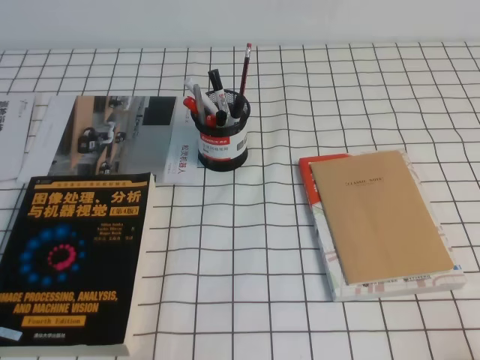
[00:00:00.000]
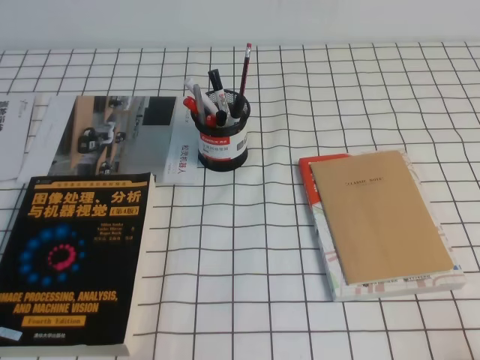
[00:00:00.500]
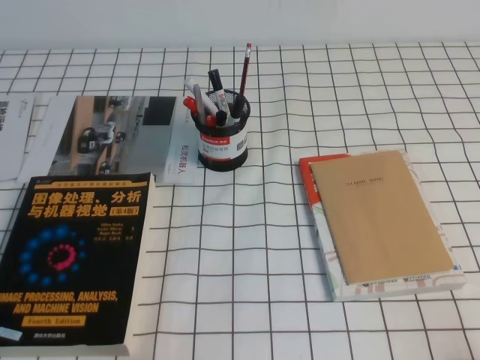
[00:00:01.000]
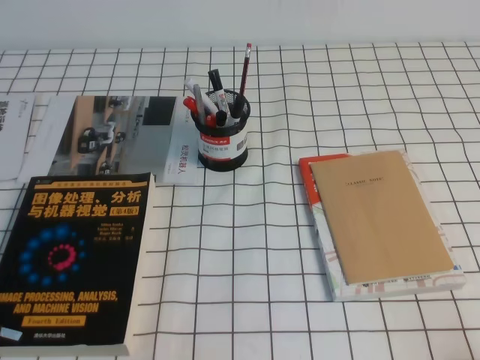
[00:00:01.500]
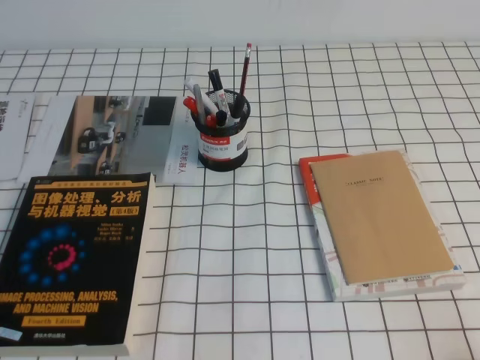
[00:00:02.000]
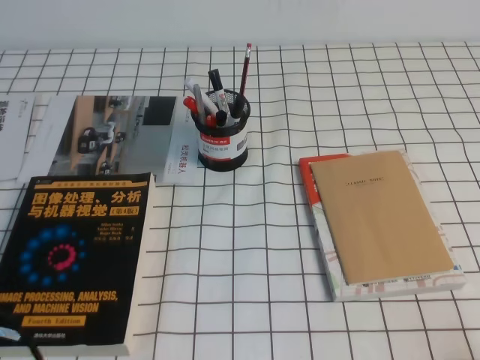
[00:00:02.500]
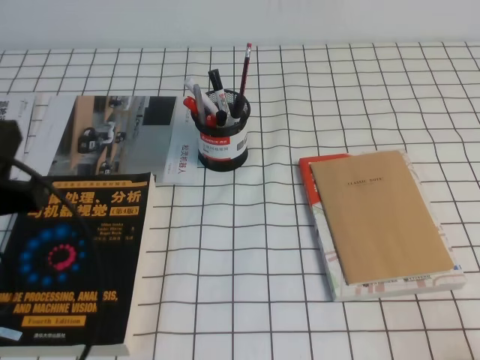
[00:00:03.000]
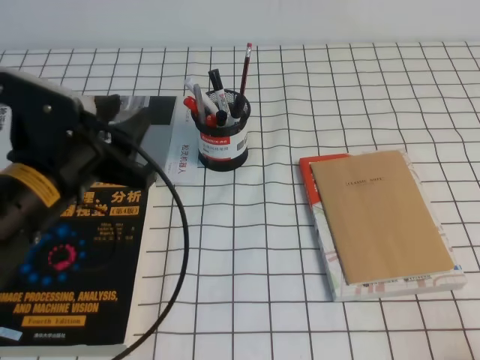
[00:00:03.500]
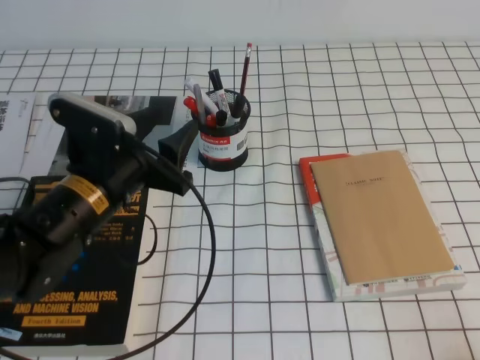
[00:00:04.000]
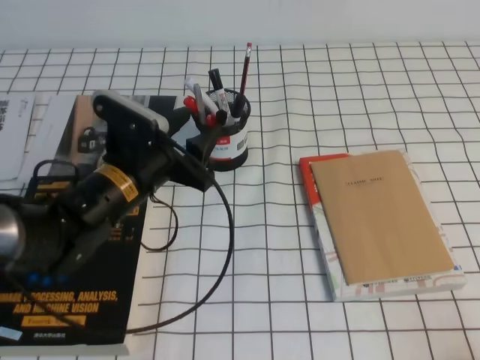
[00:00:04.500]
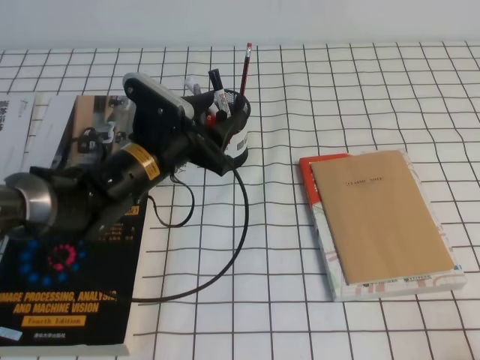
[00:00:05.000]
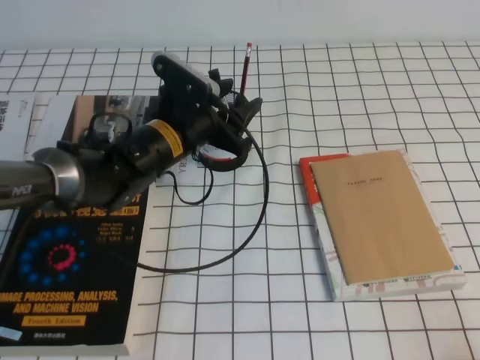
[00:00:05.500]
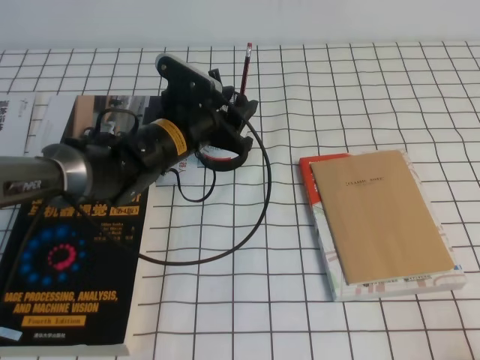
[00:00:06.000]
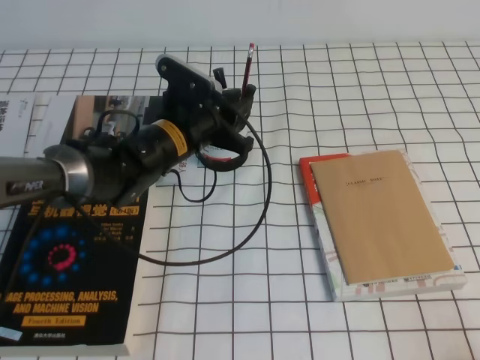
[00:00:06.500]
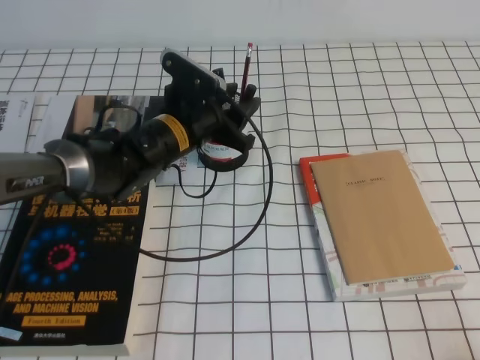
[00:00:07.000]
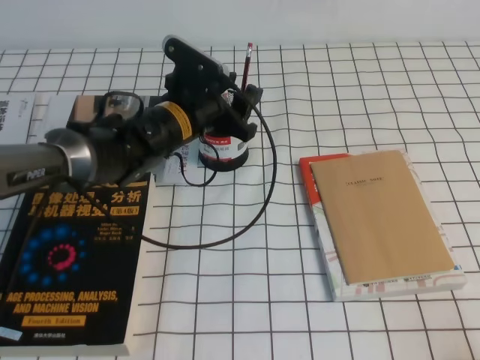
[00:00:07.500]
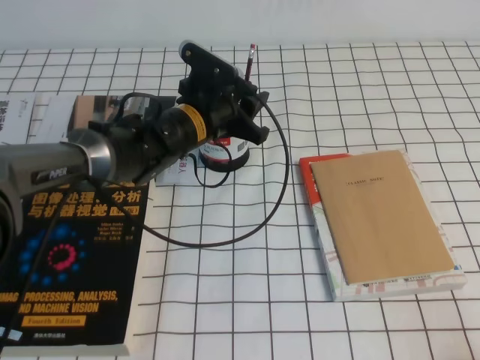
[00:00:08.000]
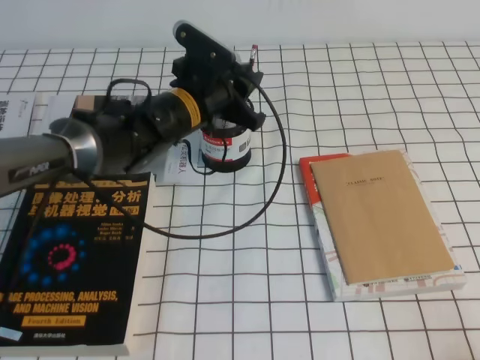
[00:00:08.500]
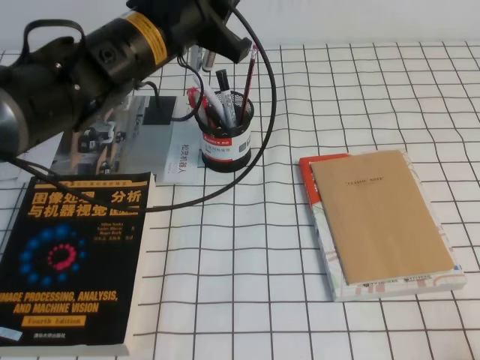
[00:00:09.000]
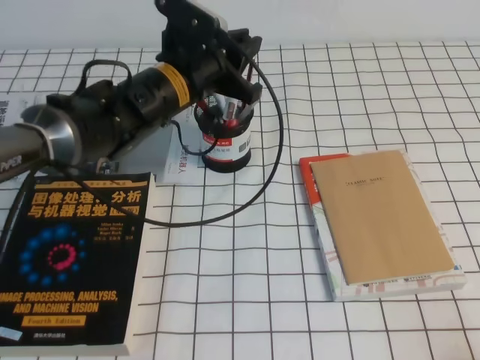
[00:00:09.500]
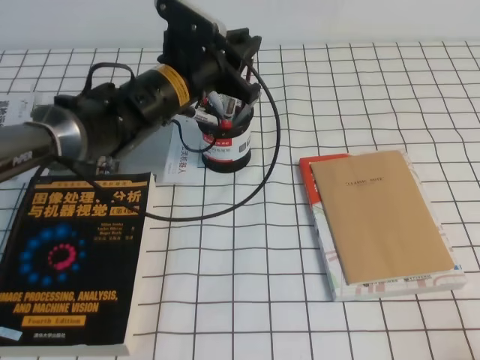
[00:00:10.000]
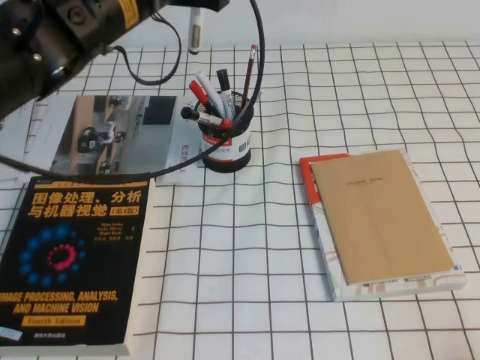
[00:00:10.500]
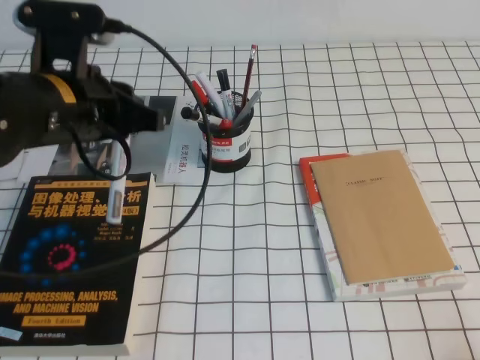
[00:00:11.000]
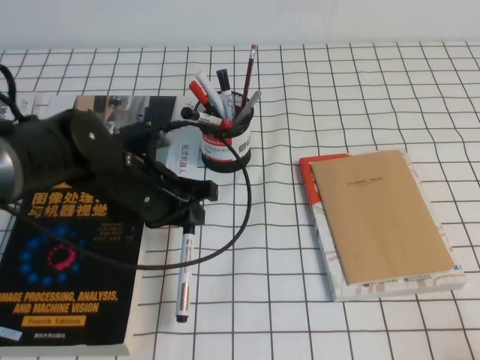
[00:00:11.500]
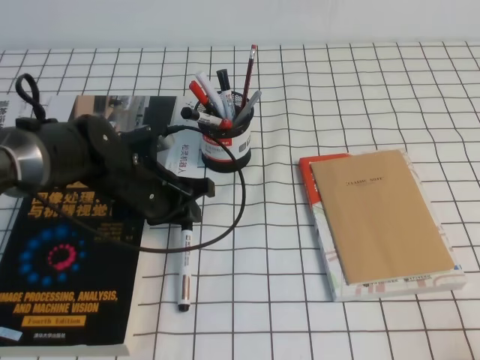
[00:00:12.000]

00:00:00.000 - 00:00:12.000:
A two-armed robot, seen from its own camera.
00:00:02.000 - 00:00:04.000: The left gripper heads forward and to the right, covering roughly 25 cm, and opens up.
00:00:04.000 - 00:00:06.000: The left gripper goes approximately 15 cm forward and to the right.
00:00:06.000 - 00:00:08.000: The grippers move only a little.
00:00:08.000 - 00:00:10.000: The left gripper heads upward, covering some 5 cm, and closes its fingers.
00:00:10.000 - 00:00:12.000: The left gripper heads downward, backward and to the left, covering about 15 cm.

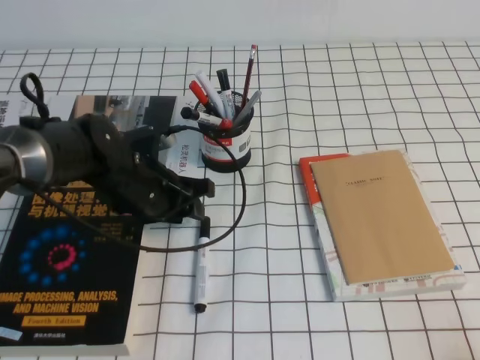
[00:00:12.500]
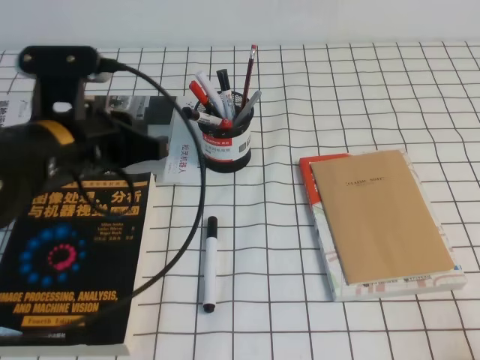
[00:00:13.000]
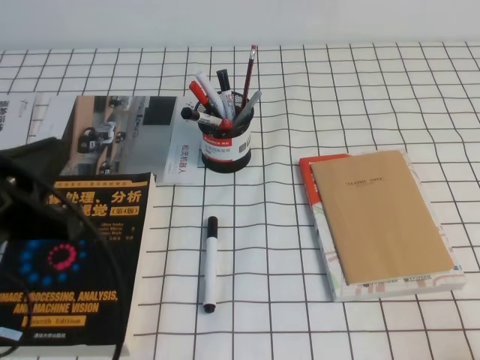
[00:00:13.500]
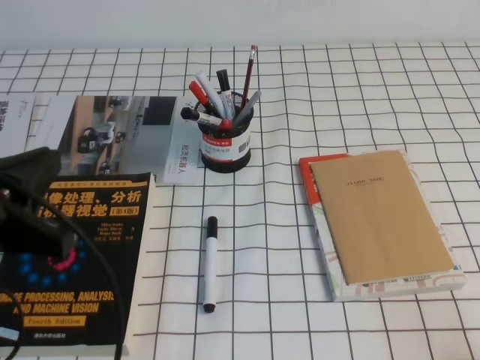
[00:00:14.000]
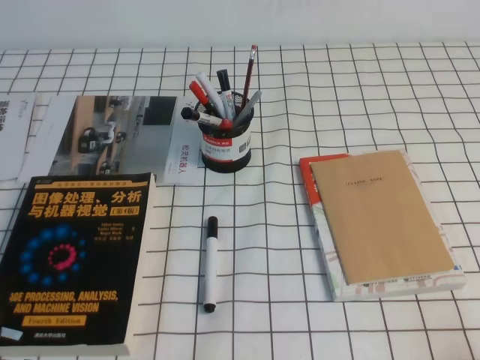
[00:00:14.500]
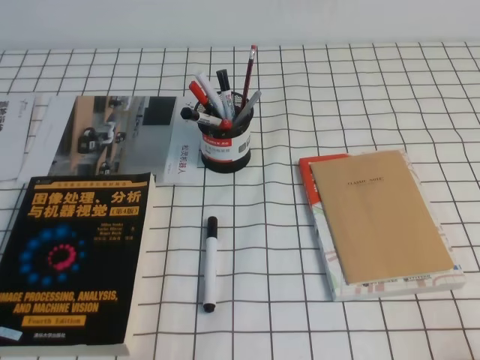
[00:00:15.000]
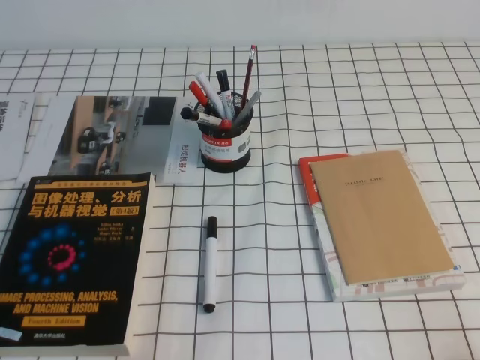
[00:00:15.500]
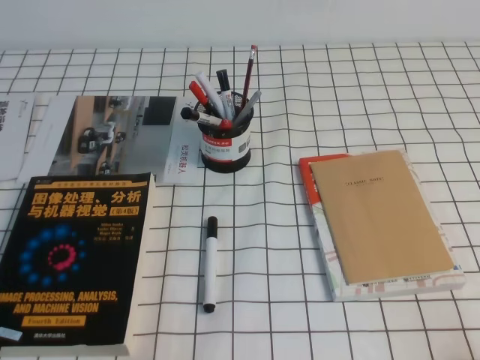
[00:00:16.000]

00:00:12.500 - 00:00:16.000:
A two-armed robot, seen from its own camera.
Step, 00:00:12.500 - 00:00:16.000: Pick up the pen from the pen holder.
00:00:12.500 - 00:00:14.500: The left gripper shifts some 30 cm backward and to the left, and closes.

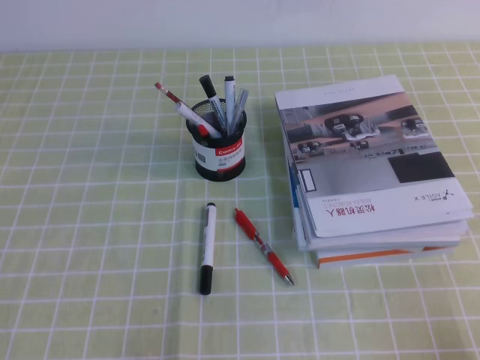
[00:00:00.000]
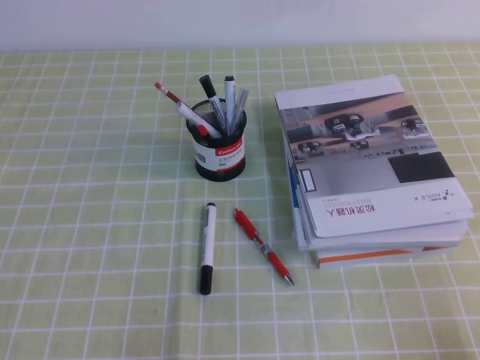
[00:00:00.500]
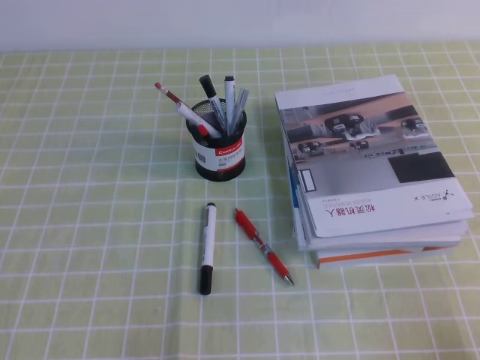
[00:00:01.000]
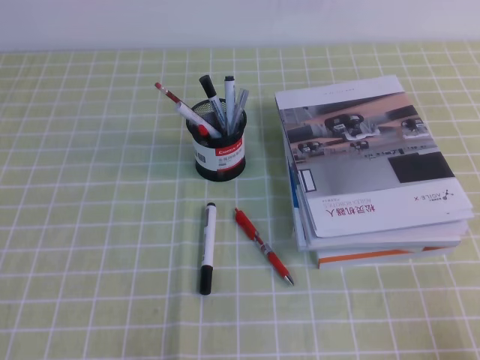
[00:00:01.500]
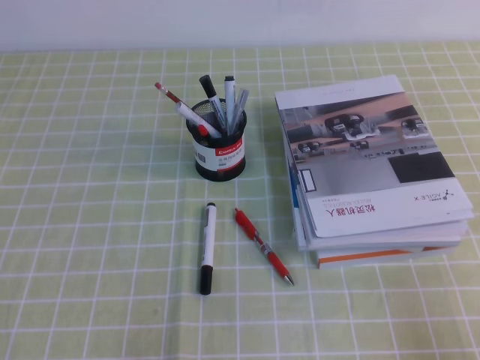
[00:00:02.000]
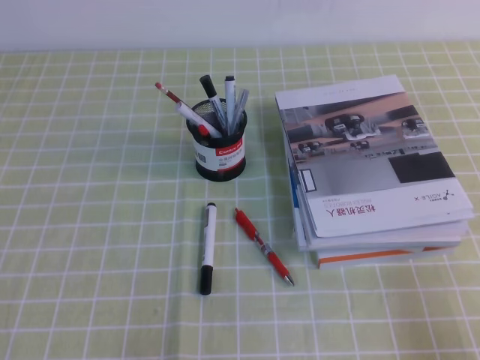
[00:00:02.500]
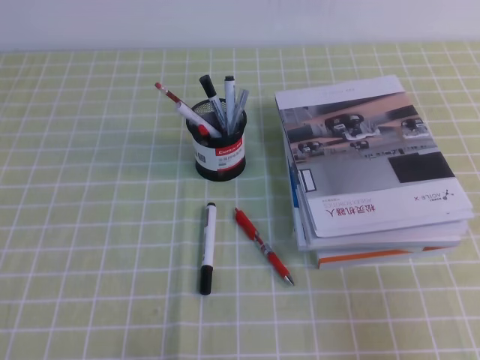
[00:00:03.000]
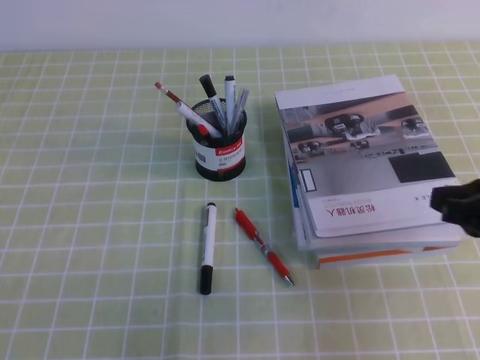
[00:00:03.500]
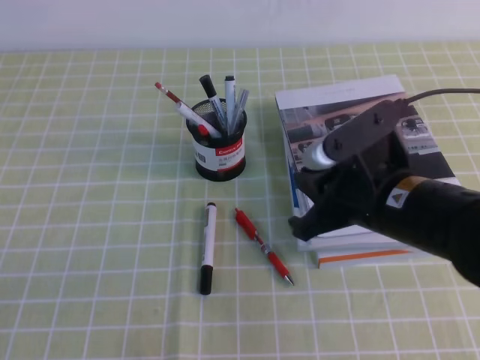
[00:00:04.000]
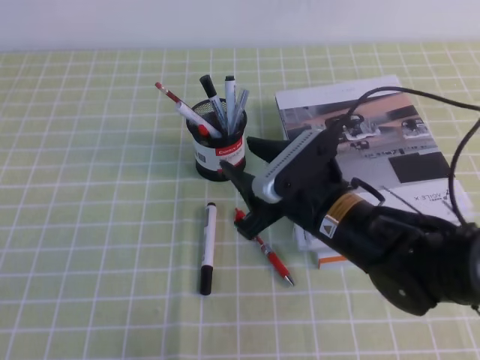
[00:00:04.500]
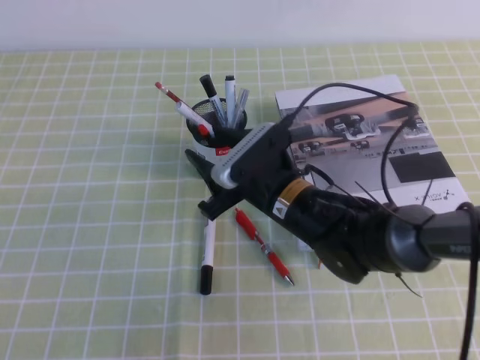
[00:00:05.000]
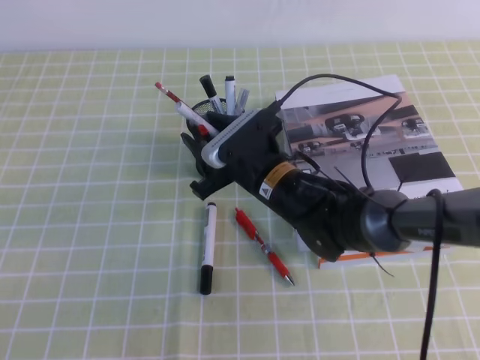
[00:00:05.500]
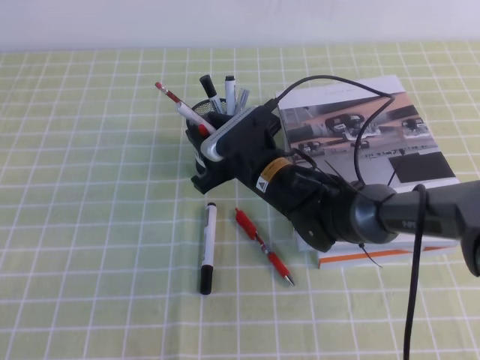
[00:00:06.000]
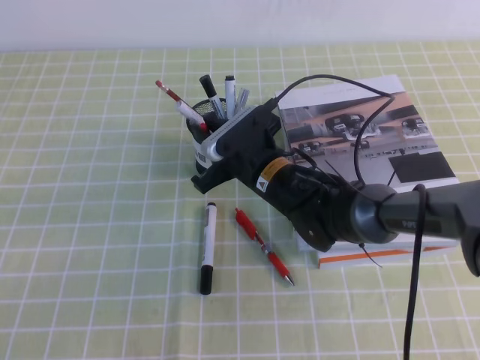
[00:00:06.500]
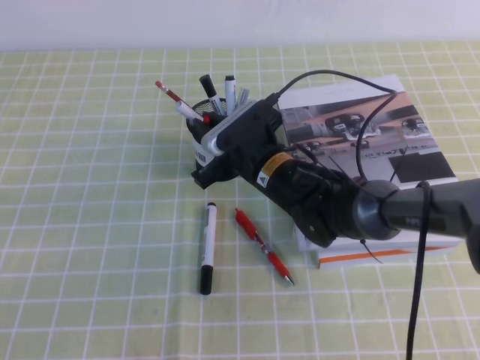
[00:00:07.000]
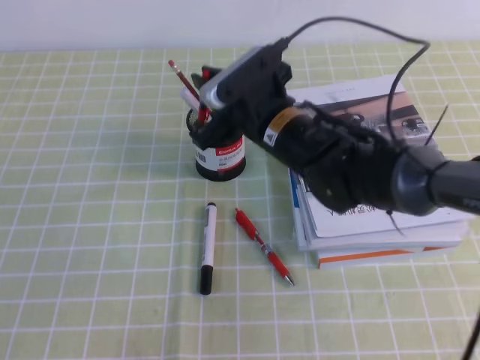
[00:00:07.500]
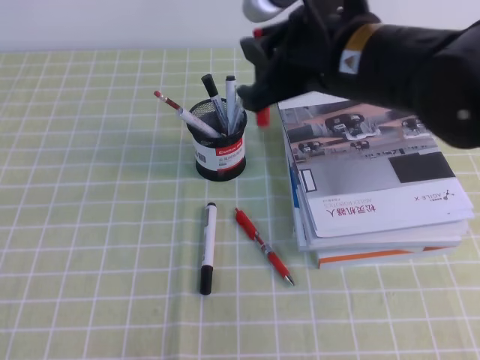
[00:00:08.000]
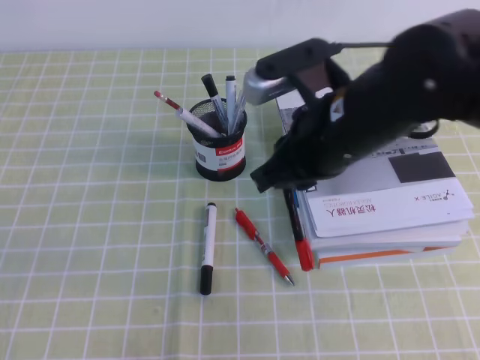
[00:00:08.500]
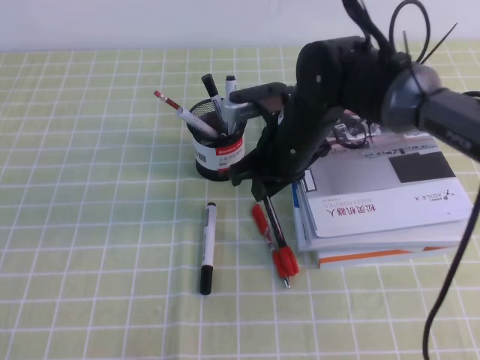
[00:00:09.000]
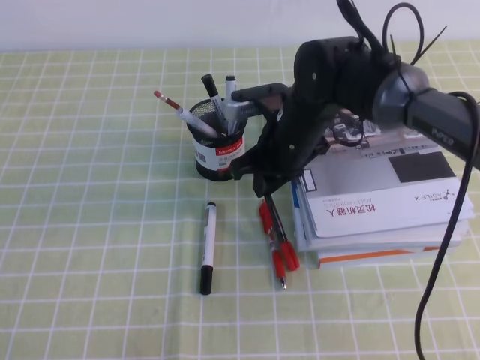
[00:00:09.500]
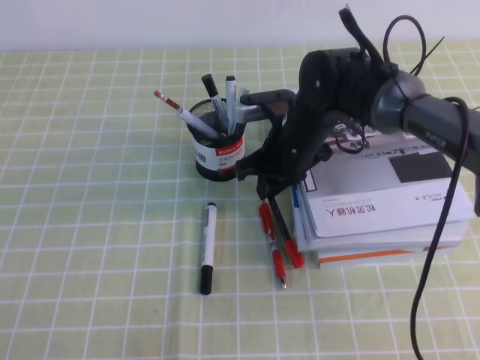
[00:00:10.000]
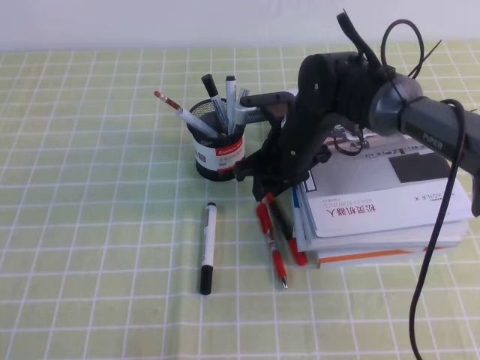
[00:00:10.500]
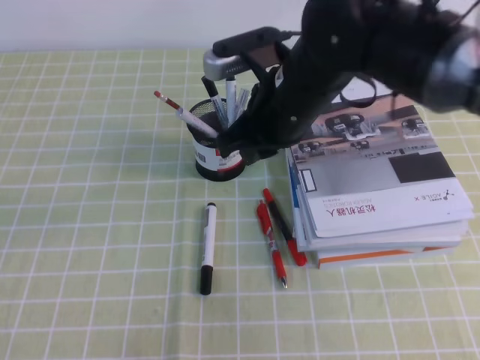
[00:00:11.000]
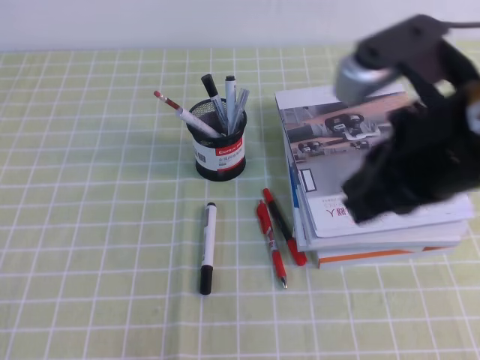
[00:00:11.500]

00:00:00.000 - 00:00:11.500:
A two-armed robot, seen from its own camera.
00:00:02.000 - 00:00:04.000: The right gripper heads forward, to the left and upward, covering about 25 cm.
00:00:04.000 - 00:00:06.000: The right gripper goes some 20 cm to the left, forward and downward, and opens.
00:00:06.000 - 00:00:07.500: The right gripper heads upward, covering roughly 10 cm, and closes up.
00:00:07.500 - 00:00:09.500: The right gripper travels upward and back again, about 10 cm each way.
00:00:09.500 - 00:00:11.500: The right gripper goes approximately 25 cm backward, upward and to the right.
